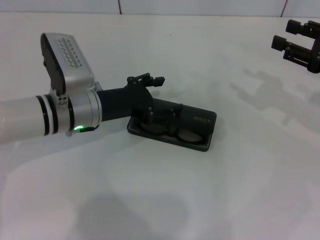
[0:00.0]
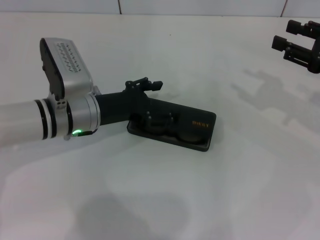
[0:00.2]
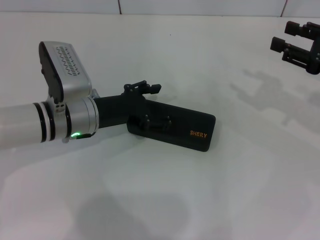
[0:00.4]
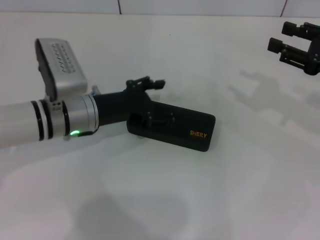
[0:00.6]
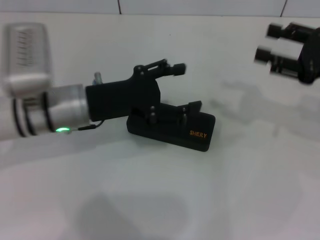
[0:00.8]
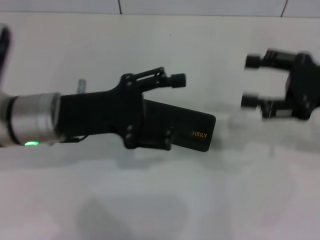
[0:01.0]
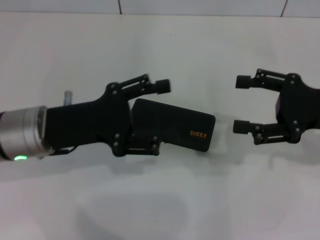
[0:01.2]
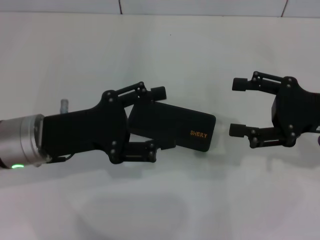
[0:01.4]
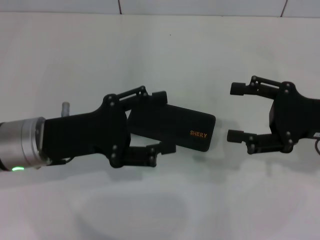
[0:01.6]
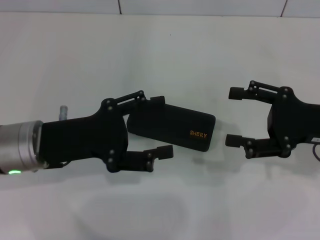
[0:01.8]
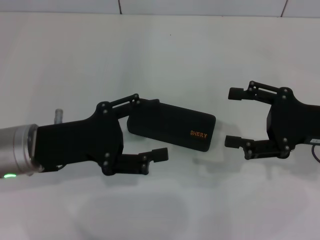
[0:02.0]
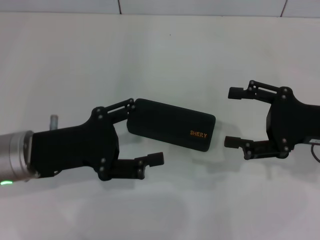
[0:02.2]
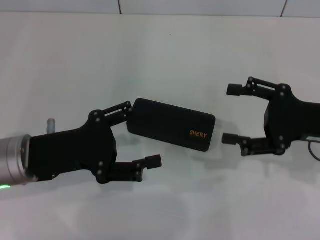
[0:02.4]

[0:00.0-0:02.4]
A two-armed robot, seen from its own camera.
0:00.0 to 0:01.2: The left gripper shifts some 10 cm backward and upward, while the right gripper shifts by about 5 cm.
0:01.2 to 0:02.4: The grippers stay close to where they were, moving slightly.

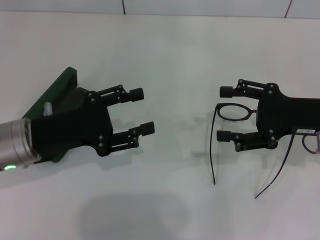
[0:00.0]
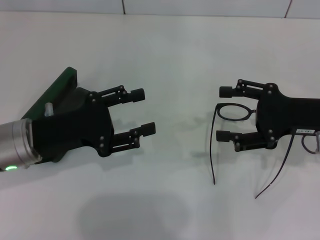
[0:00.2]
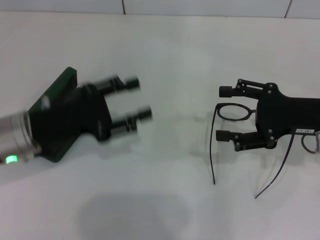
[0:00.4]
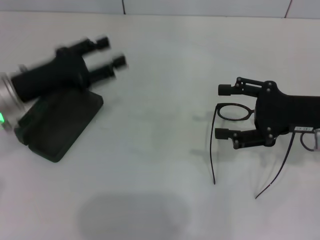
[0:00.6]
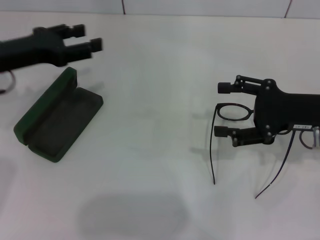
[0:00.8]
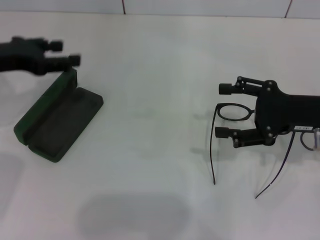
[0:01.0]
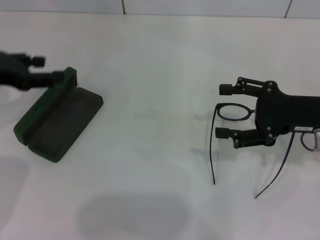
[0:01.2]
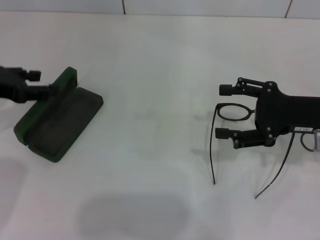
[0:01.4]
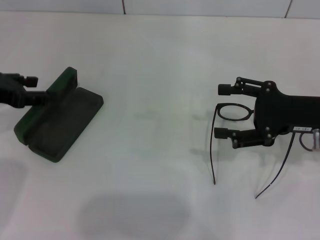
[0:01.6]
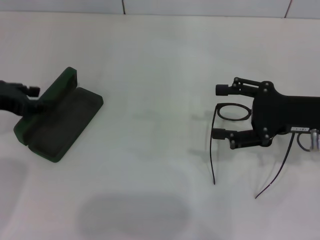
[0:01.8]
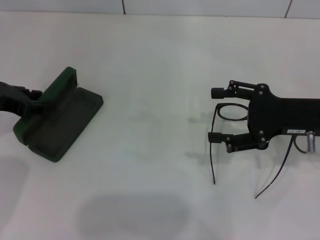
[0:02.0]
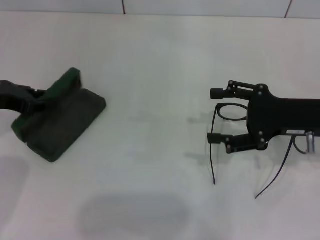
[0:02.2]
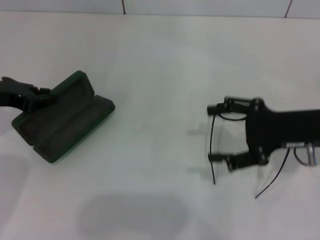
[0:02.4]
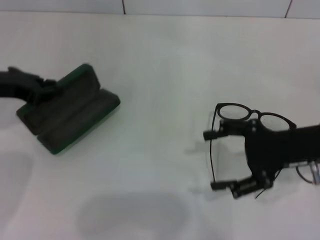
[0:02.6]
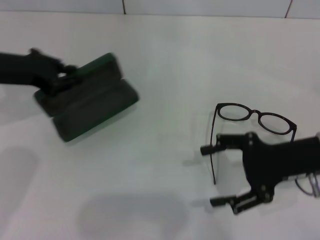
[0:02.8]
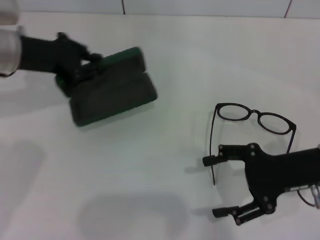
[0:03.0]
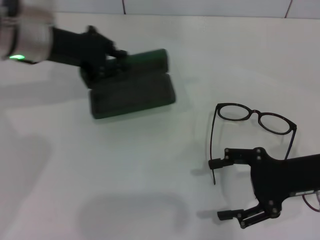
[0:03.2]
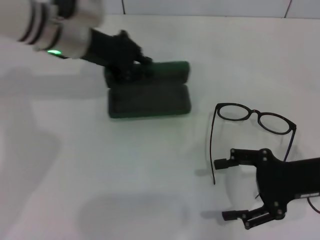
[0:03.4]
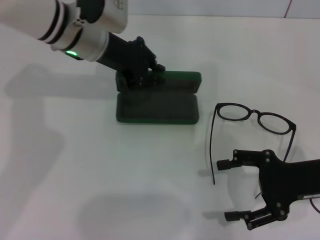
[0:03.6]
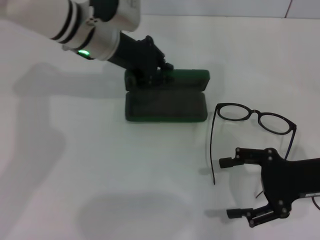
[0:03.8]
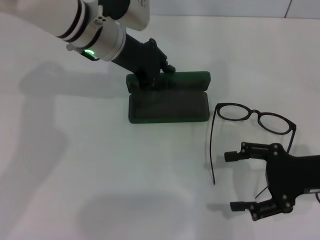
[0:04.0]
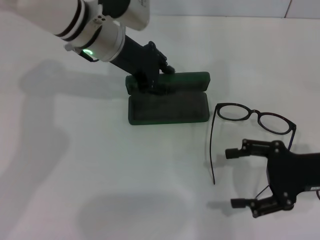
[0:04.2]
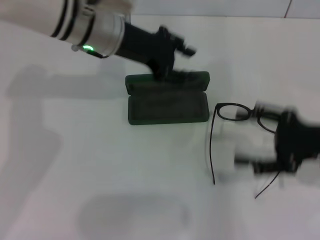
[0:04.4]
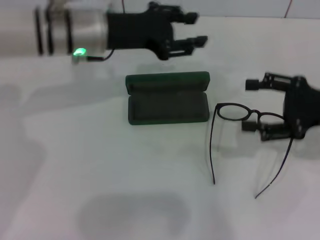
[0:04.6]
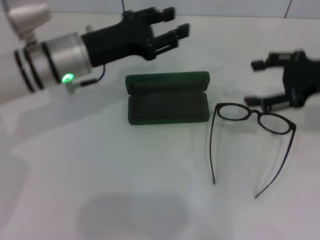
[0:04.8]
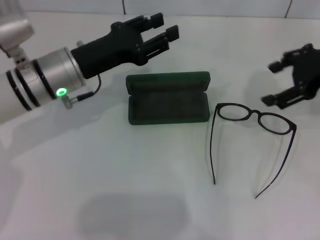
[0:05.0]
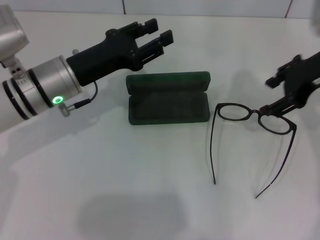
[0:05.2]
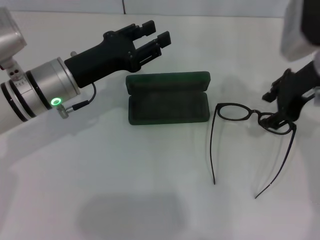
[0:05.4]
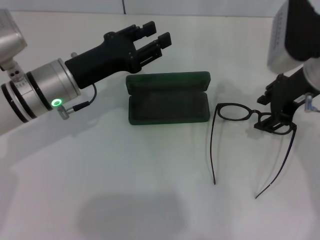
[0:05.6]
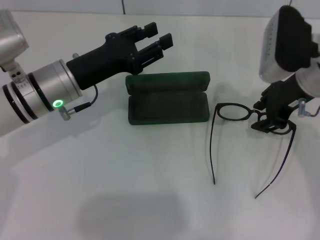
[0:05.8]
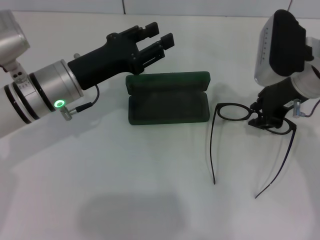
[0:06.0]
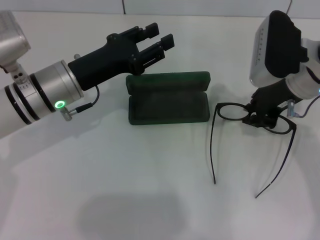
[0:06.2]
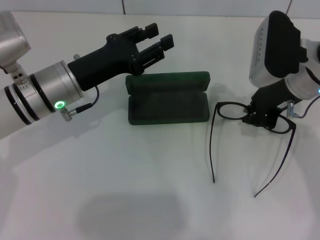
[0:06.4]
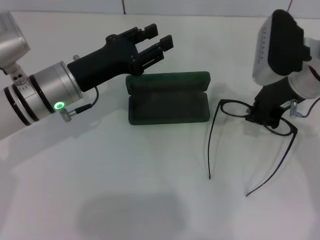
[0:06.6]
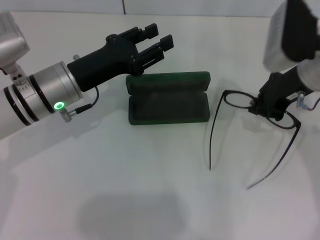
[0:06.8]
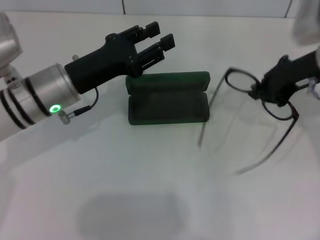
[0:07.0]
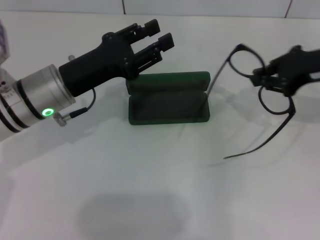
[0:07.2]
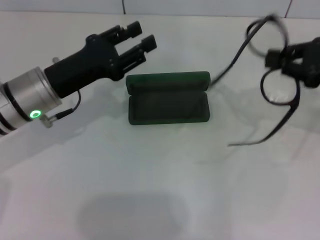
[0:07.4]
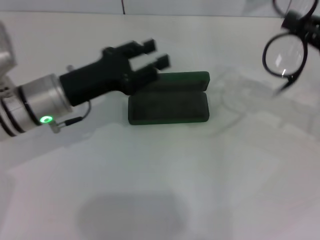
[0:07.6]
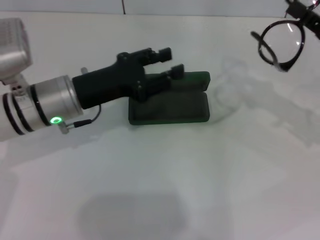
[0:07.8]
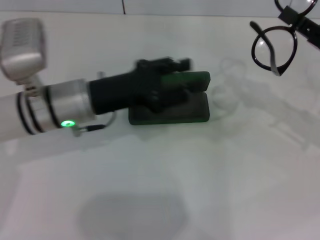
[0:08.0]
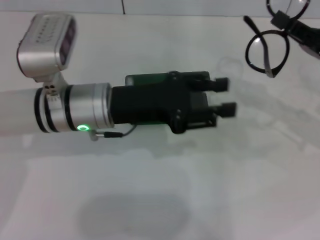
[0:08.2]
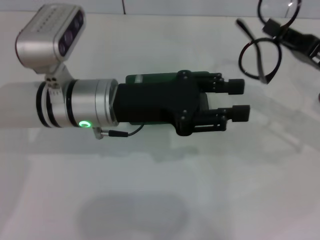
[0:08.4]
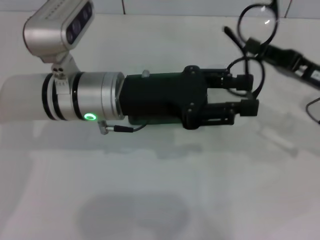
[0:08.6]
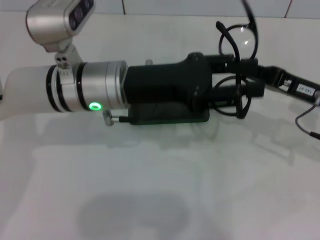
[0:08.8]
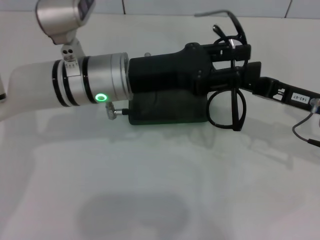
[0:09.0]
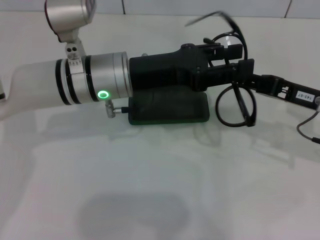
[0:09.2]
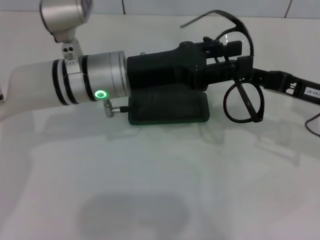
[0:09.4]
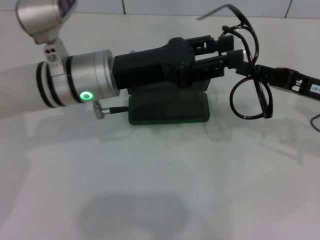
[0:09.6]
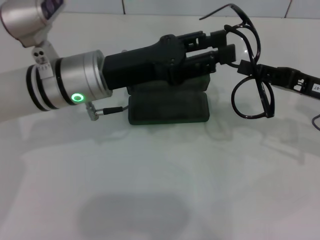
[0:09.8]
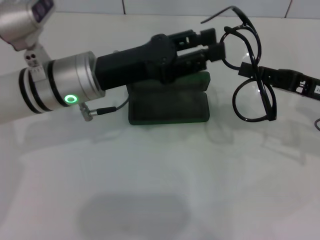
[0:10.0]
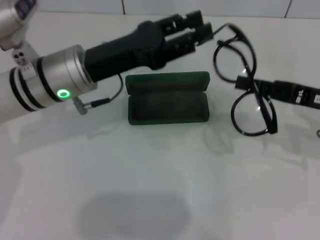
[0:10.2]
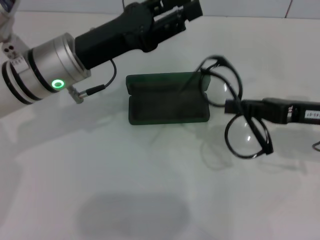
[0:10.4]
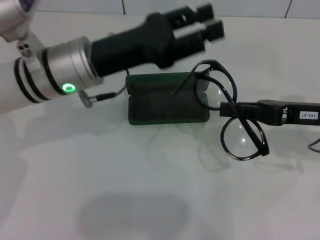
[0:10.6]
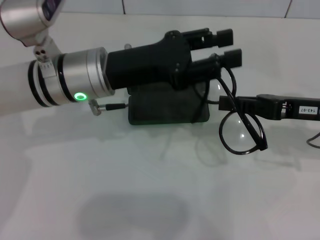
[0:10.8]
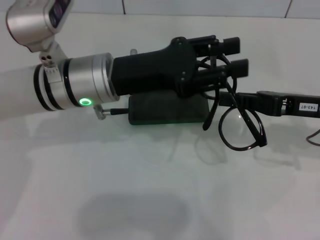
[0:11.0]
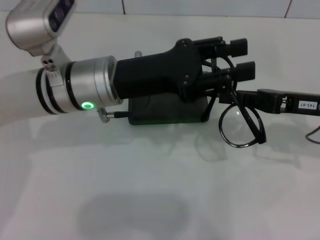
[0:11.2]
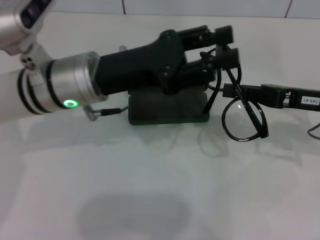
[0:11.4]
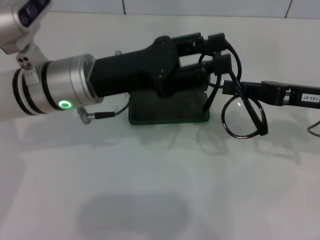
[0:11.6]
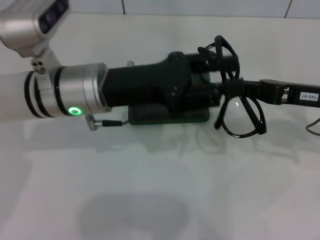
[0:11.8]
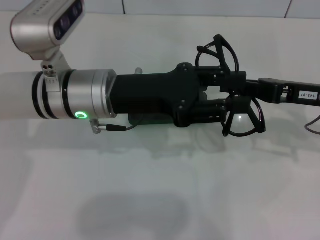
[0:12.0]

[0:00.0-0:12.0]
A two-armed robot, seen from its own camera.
Step, 0:00.0 to 0:02.4: Grab the glasses case with your left hand.
Step, 0:02.6 to 0:04.2: Place the glasses case in the center of the table with your left hand.
Step, 0:04.4 to 0:06.4: Grab the eyeglass frame with your right hand.
0:00.0 to 0:01.6: The left gripper shifts about 10 cm to the left and upward.
0:01.6 to 0:03.0: The left gripper shifts about 10 cm to the right and forward, and closes.
0:03.0 to 0:04.4: The left gripper is displaced to the right by about 15 cm.
0:04.4 to 0:06.0: The left gripper goes roughly 10 cm backward, downward and to the left; the right gripper travels forward, to the left and upward by approximately 15 cm, and closes.
0:06.0 to 0:07.6: The right gripper travels to the right by approximately 15 cm, and closes up.
0:07.6 to 0:09.0: The left gripper moves to the right, some 10 cm. The right gripper is displaced to the left and downward by roughly 10 cm.
0:09.0 to 0:10.4: The left gripper shifts about 5 cm to the left.

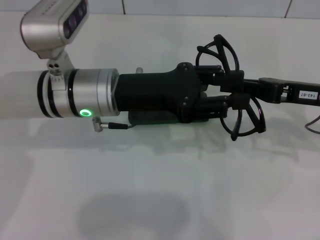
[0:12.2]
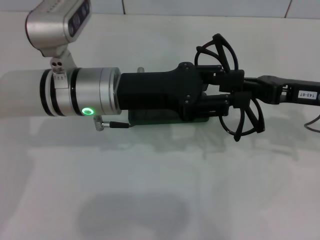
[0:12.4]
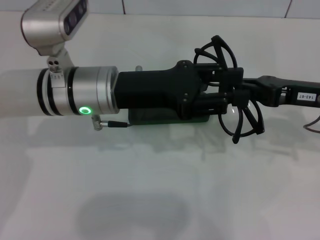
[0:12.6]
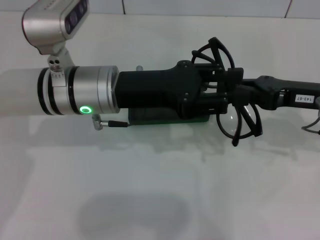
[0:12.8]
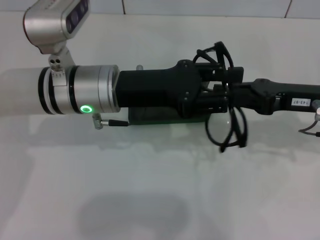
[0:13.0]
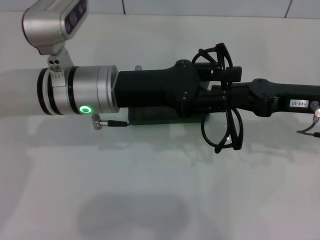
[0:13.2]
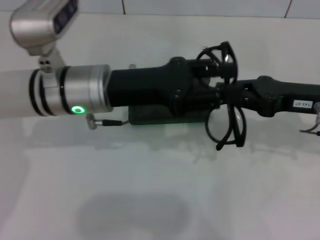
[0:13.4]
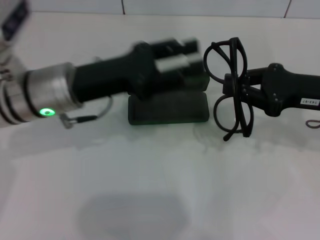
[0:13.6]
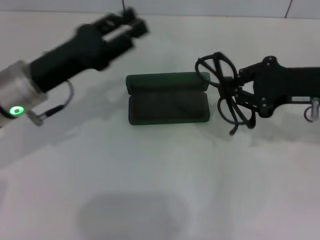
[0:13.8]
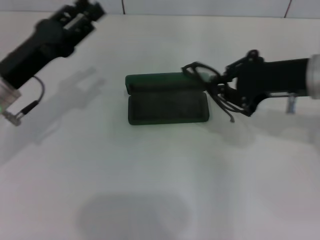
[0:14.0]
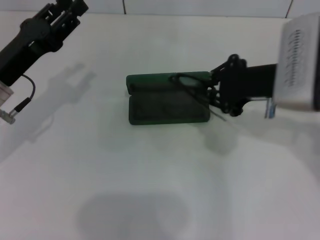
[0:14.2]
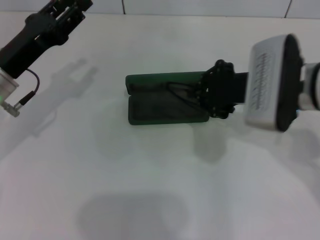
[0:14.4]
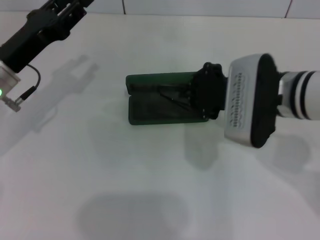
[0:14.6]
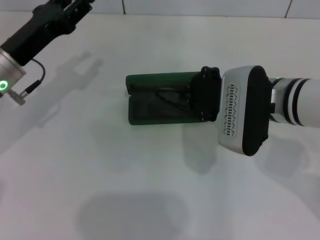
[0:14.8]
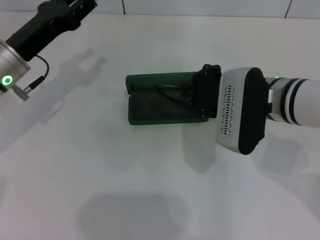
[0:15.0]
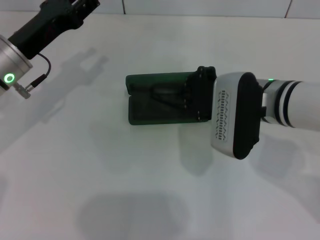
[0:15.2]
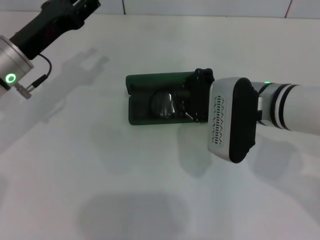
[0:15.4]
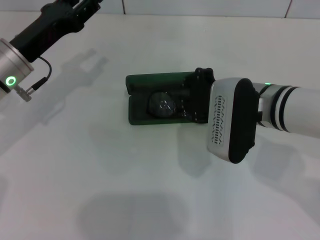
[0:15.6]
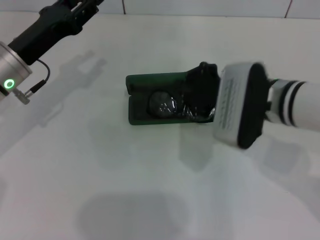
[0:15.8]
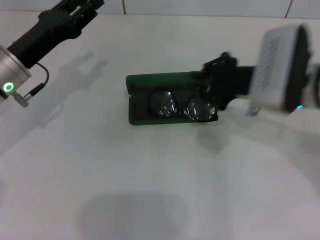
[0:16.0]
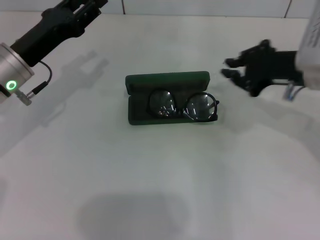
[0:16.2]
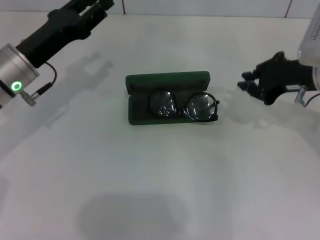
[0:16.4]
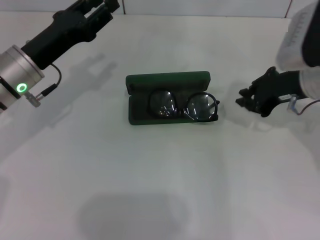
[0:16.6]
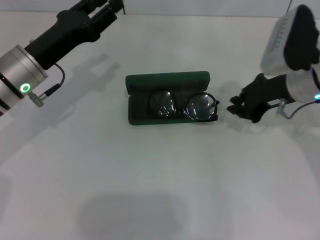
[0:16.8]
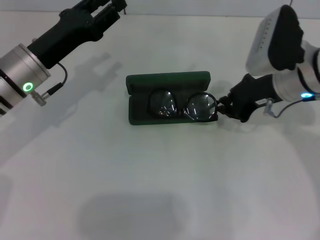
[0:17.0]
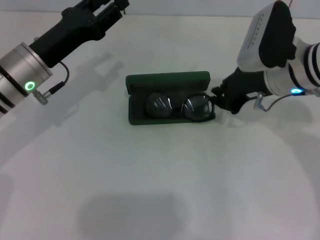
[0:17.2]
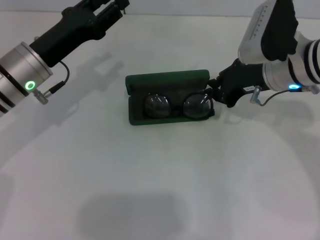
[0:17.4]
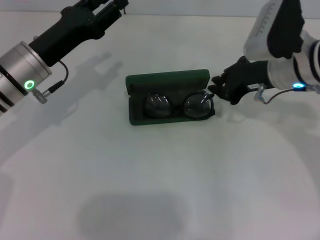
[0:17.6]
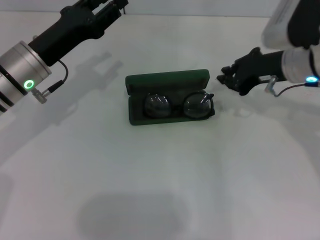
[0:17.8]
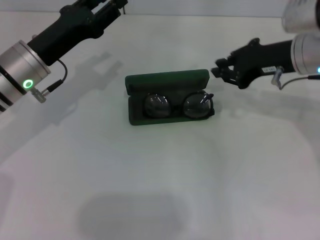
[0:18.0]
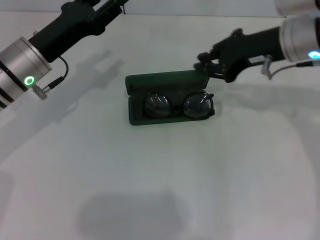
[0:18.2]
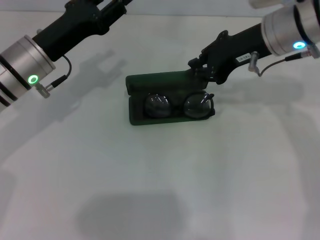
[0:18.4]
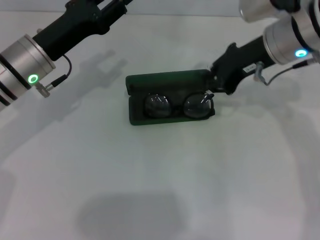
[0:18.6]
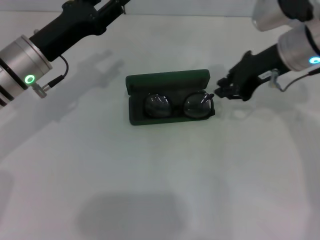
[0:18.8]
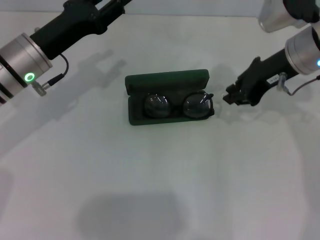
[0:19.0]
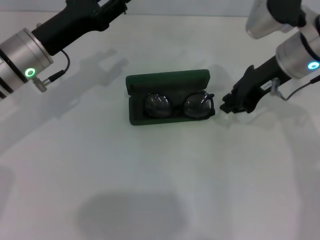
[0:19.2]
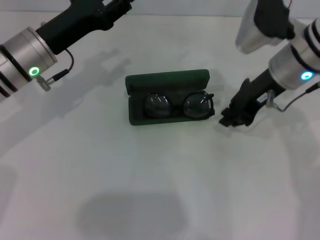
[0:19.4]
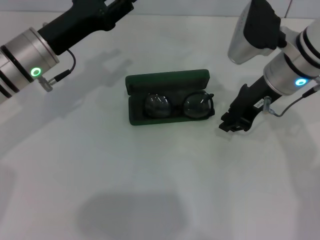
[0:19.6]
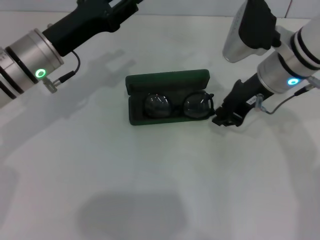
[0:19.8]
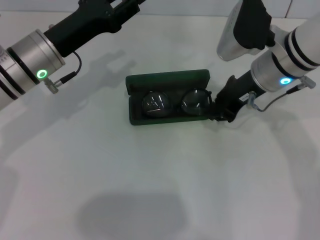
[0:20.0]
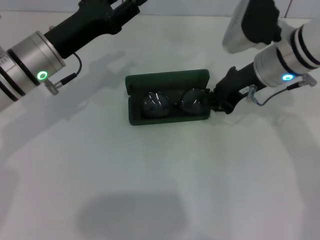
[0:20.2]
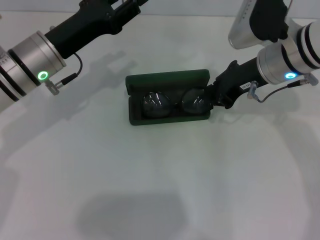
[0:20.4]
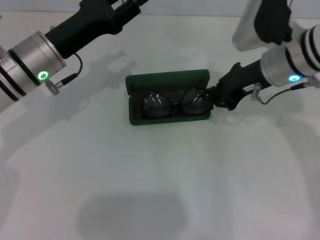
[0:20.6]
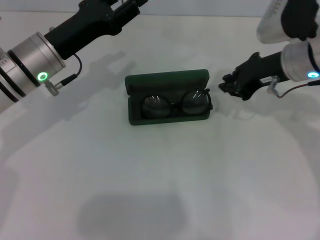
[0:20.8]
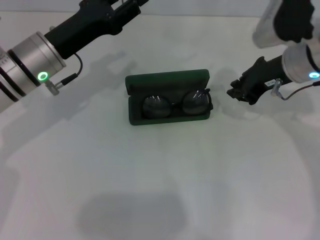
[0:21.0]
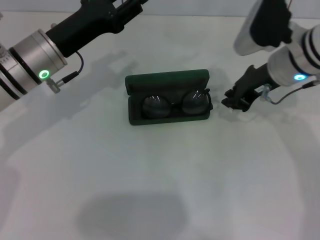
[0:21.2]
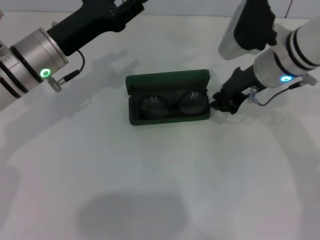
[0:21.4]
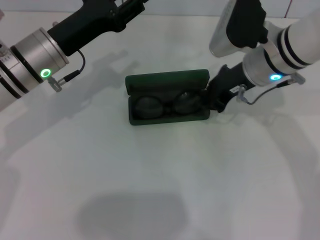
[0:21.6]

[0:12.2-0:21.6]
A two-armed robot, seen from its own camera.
0:12.2 to 0:13.8: The left gripper is displaced to the left by approximately 10 cm.
0:13.8 to 0:15.4: The right gripper travels to the left by about 10 cm.
0:15.4 to 0:17.0: The right gripper heads to the right and forward, covering approximately 10 cm.
0:17.0 to 0:18.4: The right gripper is displaced upward by about 5 cm.
0:18.4 to 0:20.0: The right gripper shifts roughly 5 cm downward.
0:20.0 to 0:21.6: The grippers make only small movements.
